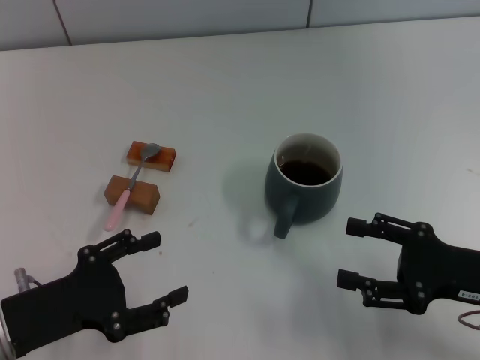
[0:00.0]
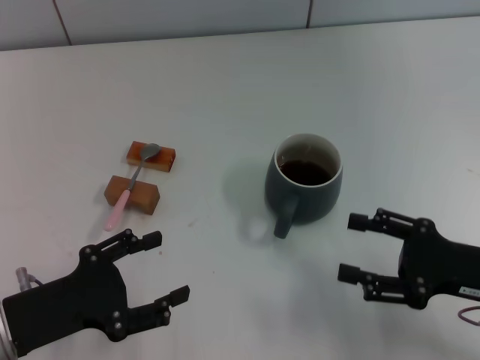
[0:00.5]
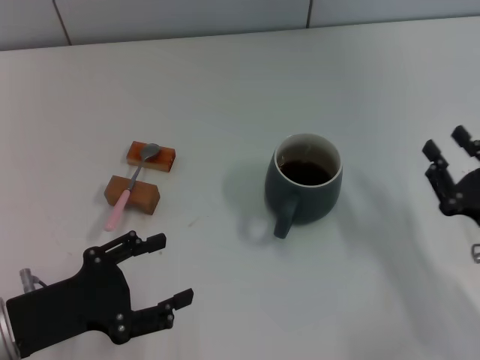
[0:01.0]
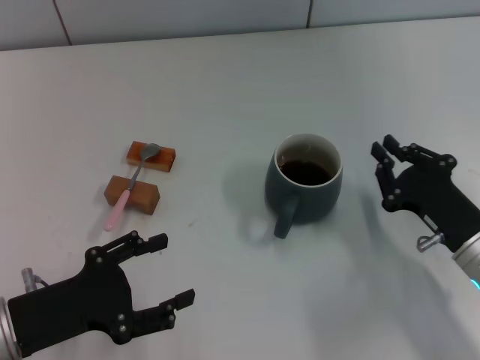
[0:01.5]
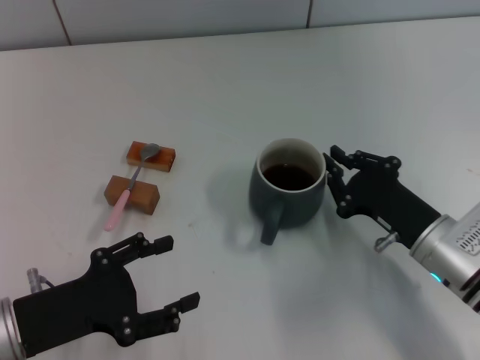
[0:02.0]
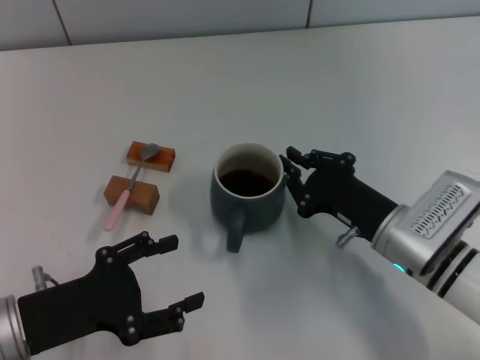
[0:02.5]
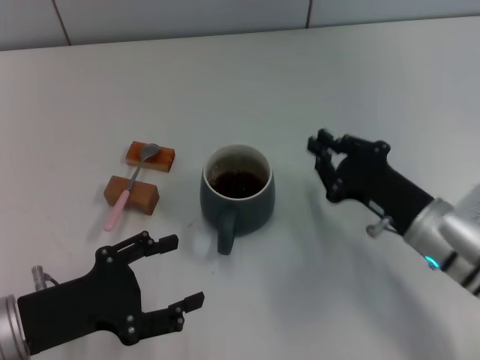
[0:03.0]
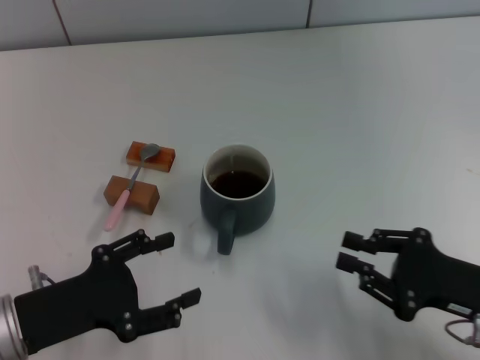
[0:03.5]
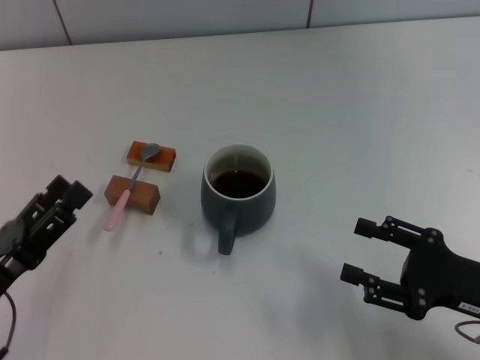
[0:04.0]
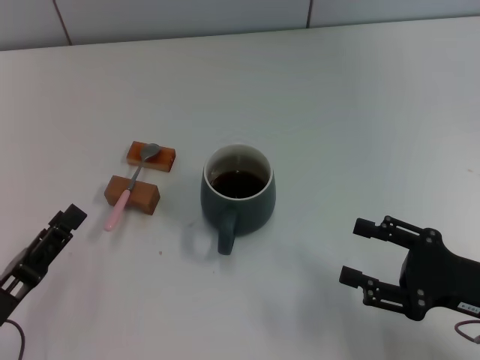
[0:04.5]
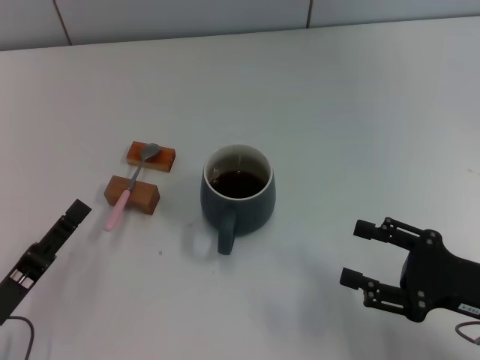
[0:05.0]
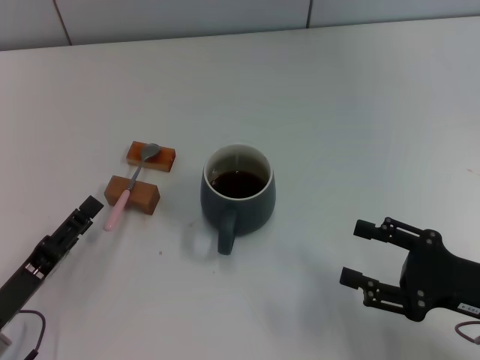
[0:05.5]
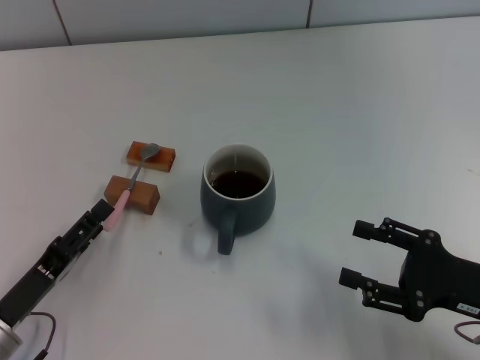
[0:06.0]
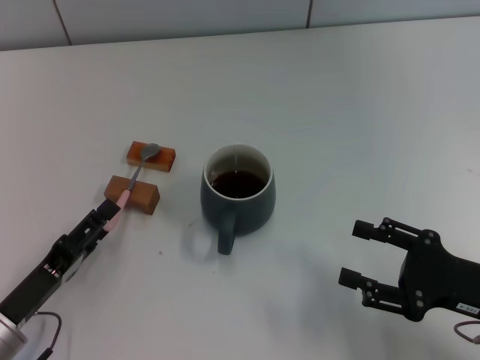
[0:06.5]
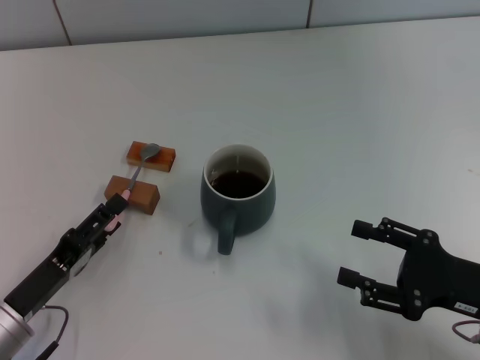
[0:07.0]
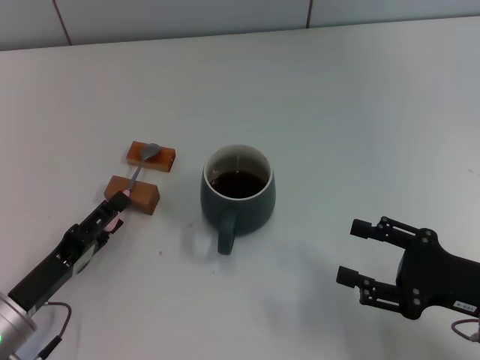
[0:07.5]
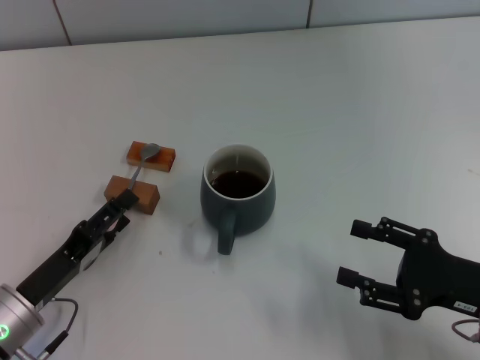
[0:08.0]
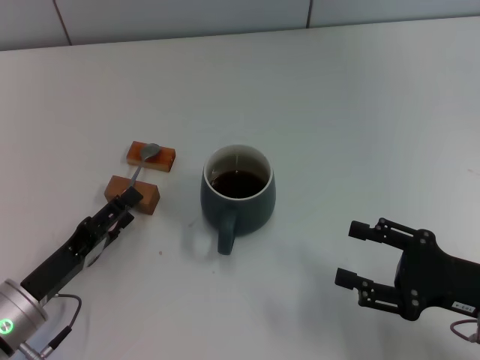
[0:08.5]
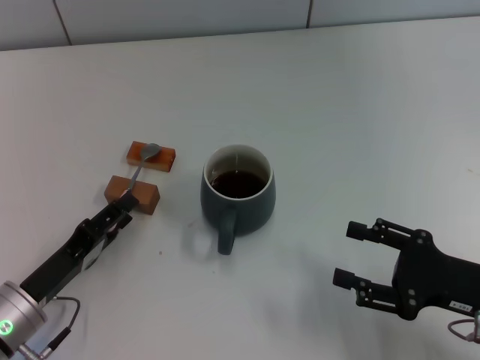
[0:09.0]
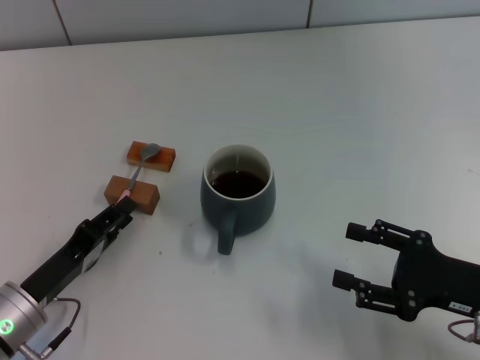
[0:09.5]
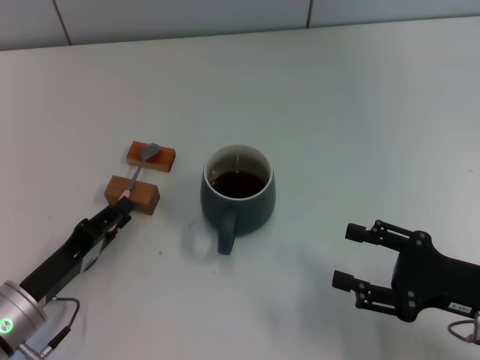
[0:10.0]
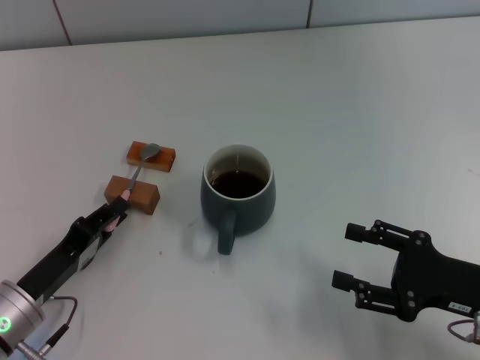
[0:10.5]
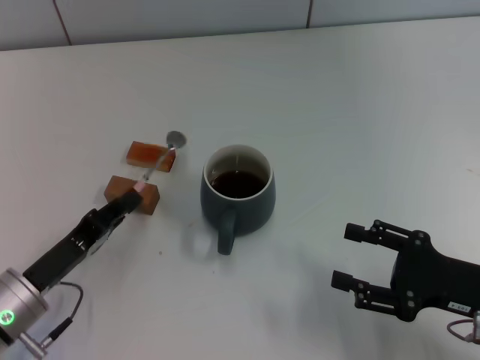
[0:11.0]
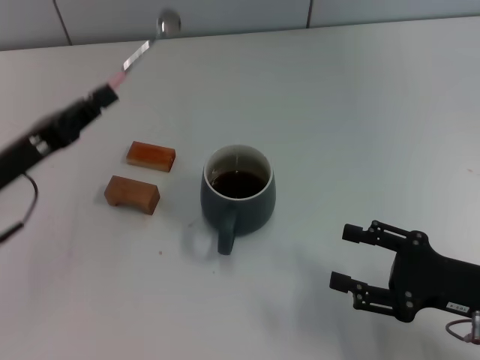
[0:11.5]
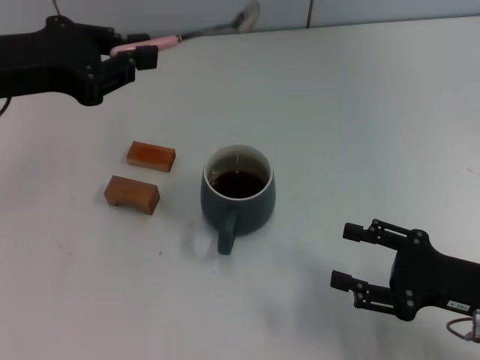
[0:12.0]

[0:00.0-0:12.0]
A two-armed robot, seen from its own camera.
Task of the whole recording: Move the grey cup to the center, lift the pink spoon, stir it three times in the cup, and put the spoon into the cup.
Step, 0:00.0 to 0:02.5: Move the cup with coffee to the center of view with the right gripper.
Step, 0:03.0 to 0:10.5: Pick up the spoon with the left gripper.
0:00.0 to 0:02.0: The right gripper travels to the left by about 5 cm, and closes up.
0:02.0 to 0:04.0: The right gripper moves to the right and backward, approximately 10 cm, and opens its fingers.
0:04.0 to 0:06.0: The right gripper opens up.
0:06.0 to 0:08.0: The grippers move only a little.
0:08.0 to 0:10.0: The left gripper closes up.
0:10.0 to 0:12.0: The left gripper travels upward and forward by roughly 25 cm, and closes.

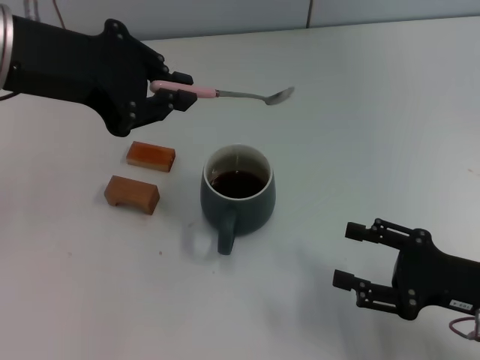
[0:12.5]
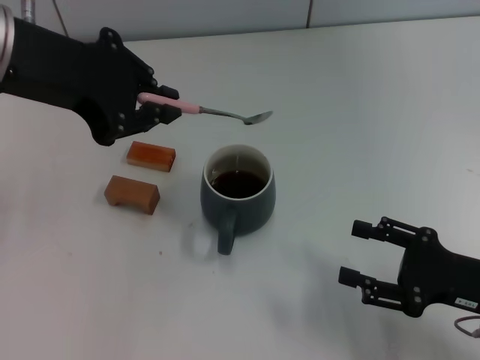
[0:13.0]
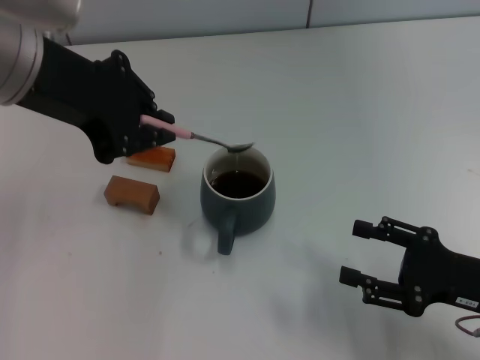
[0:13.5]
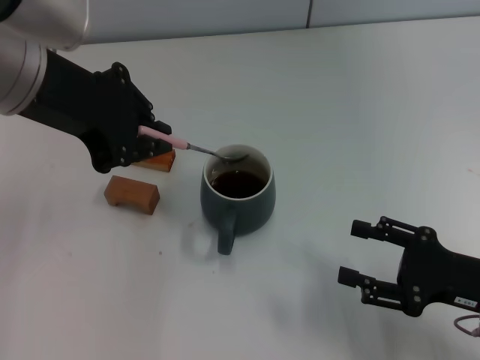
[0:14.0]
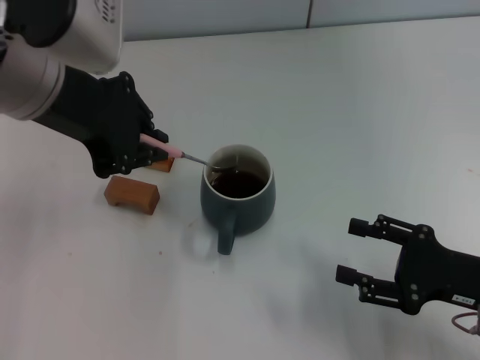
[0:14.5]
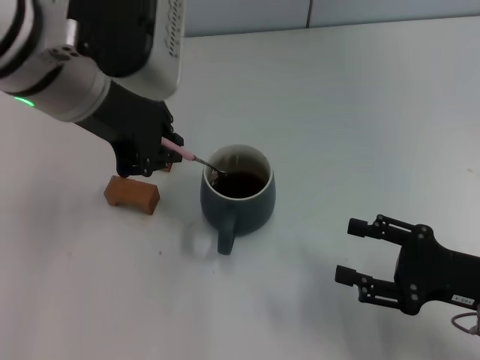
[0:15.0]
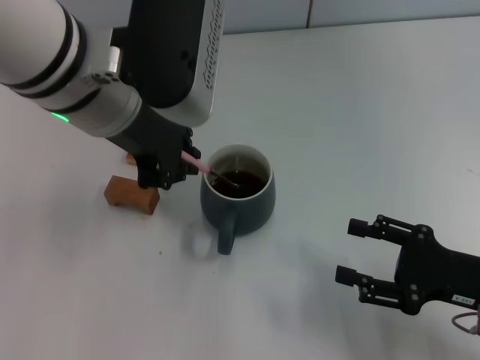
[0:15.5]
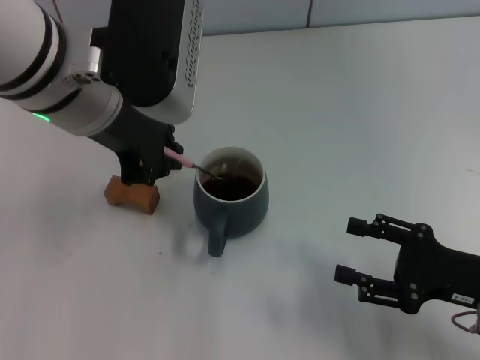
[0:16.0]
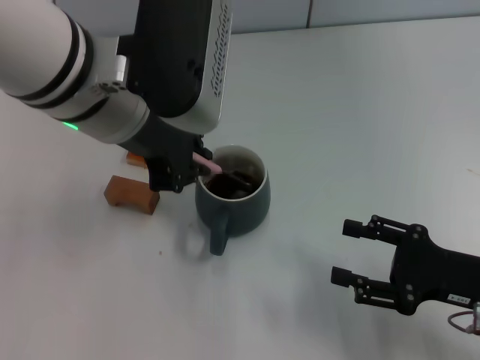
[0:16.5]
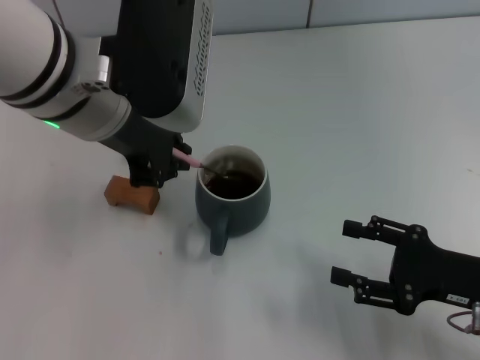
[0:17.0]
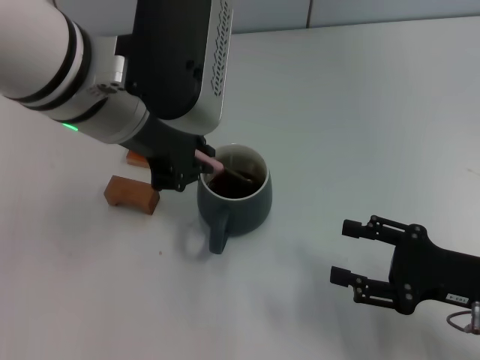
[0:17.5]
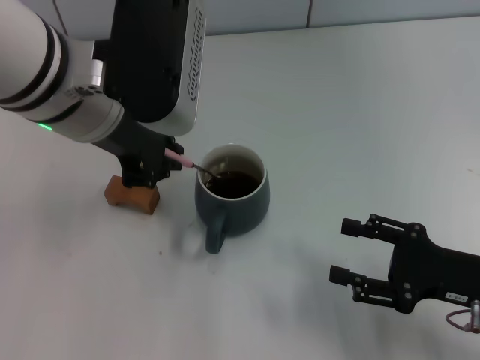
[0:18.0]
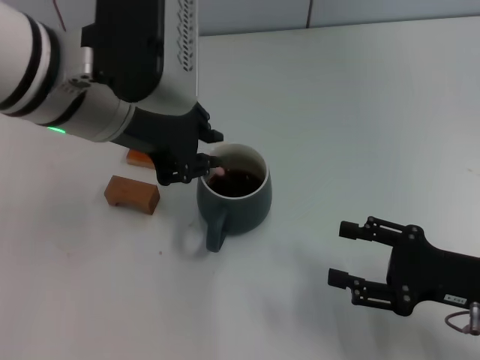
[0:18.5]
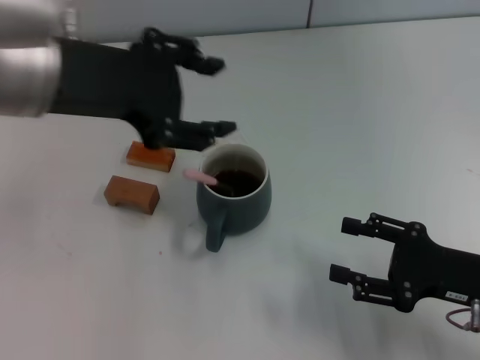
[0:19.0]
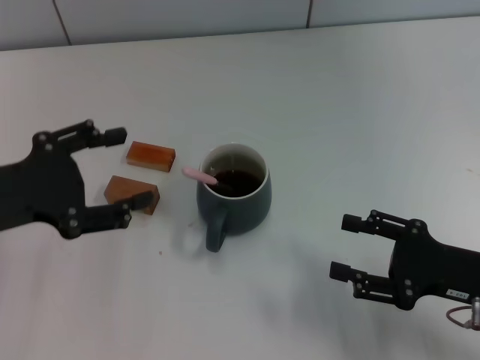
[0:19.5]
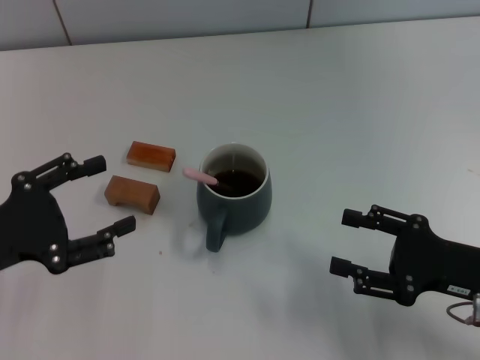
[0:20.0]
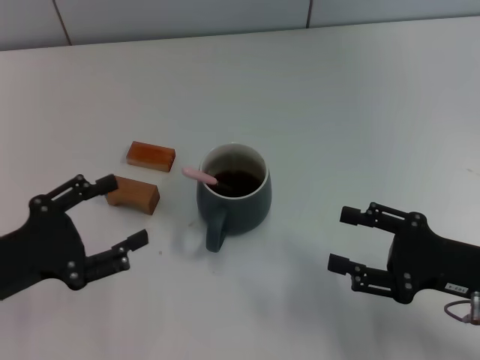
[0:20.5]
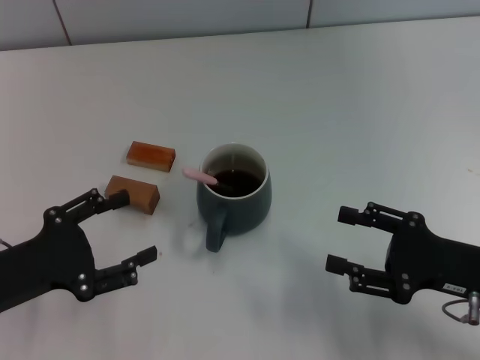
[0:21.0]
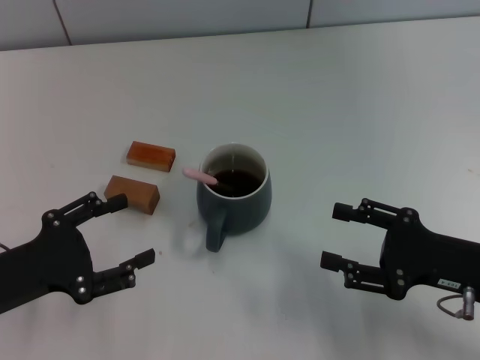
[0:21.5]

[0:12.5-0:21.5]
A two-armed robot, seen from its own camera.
Task of the whole recording: Move the grey cup to the center, lift the pink spoon, stir it three times in the cup, and put the spoon into the cup.
Step, 0:12.5 to 0:18.5: Stir the coffee in the cup with the left gripper.
0:14.5 to 0:17.0: The left gripper ends up approximately 5 cm from where it was.
0:17.0 to 0:19.5: The left gripper is displaced to the left, downward and backward by roughly 20 cm, and opens up.
0:19.5 to 0:21.5: The left gripper goes some 10 cm downward.
